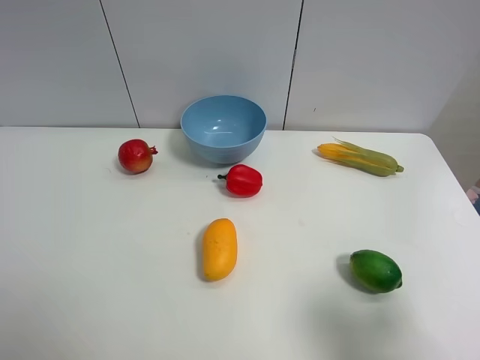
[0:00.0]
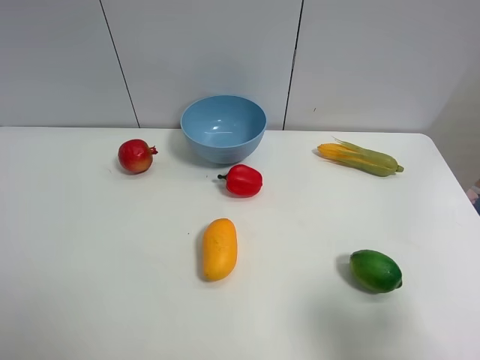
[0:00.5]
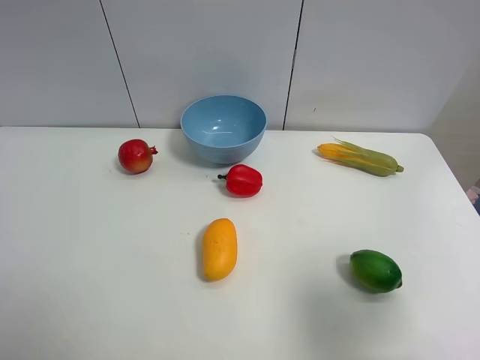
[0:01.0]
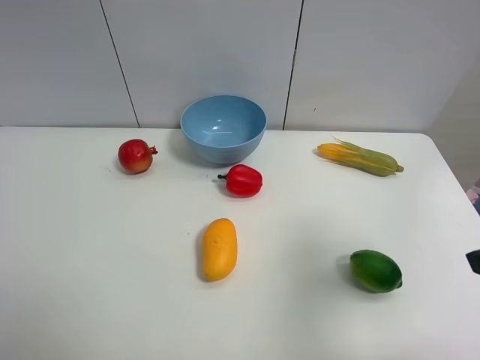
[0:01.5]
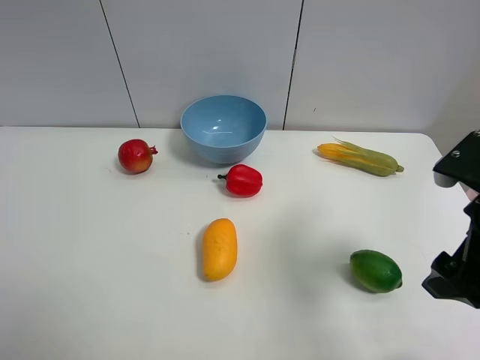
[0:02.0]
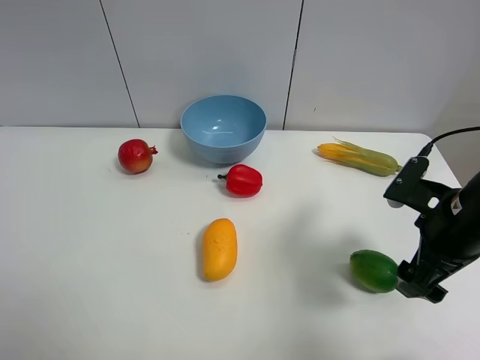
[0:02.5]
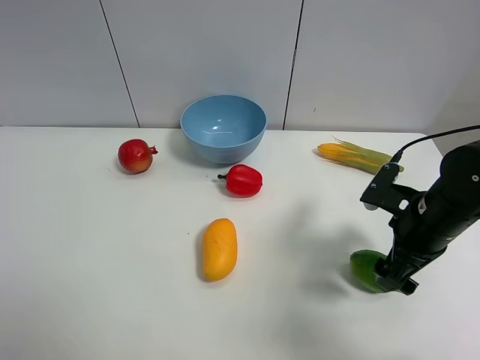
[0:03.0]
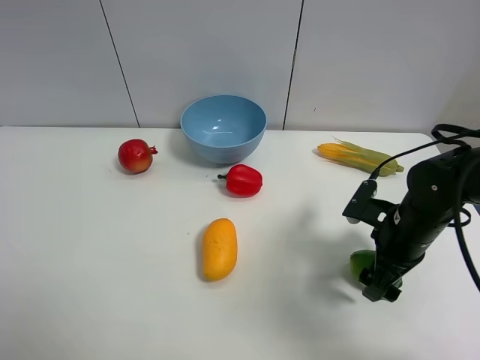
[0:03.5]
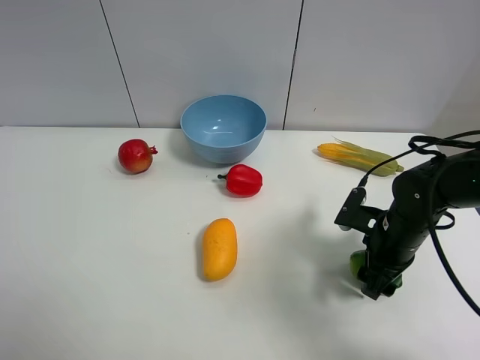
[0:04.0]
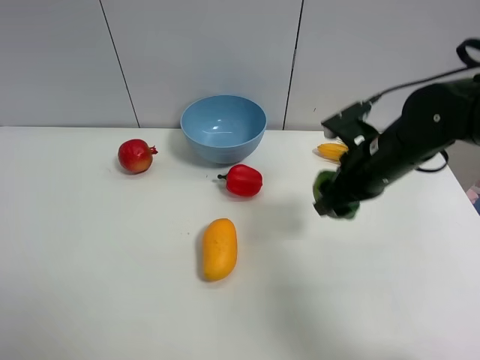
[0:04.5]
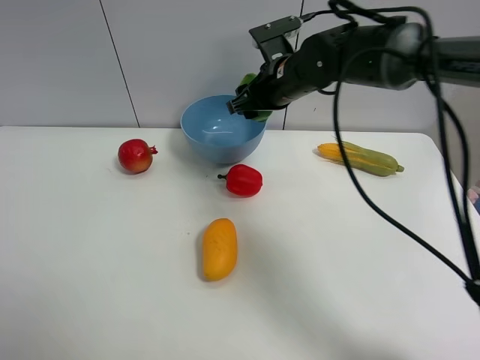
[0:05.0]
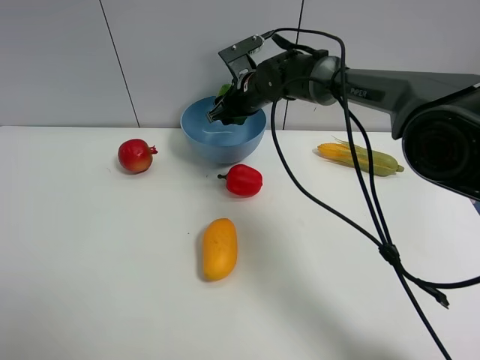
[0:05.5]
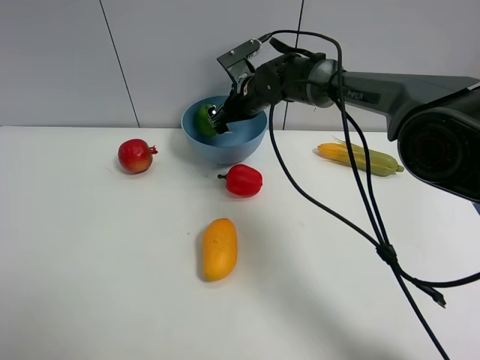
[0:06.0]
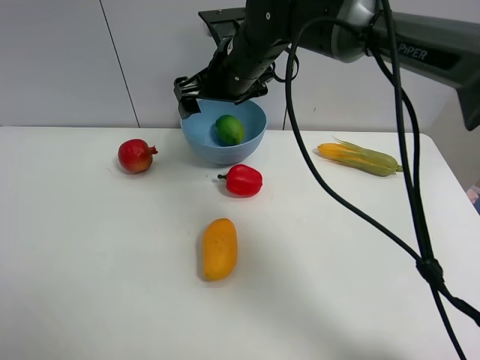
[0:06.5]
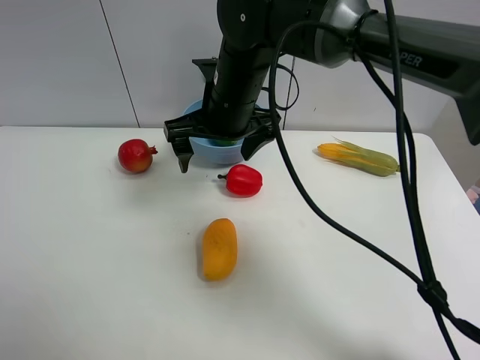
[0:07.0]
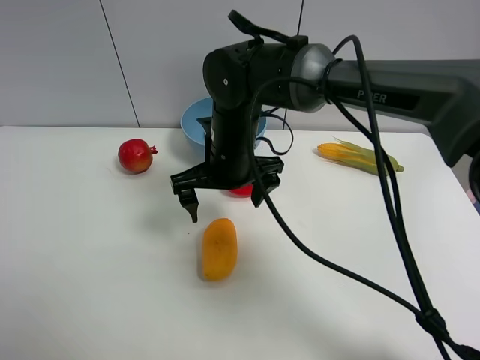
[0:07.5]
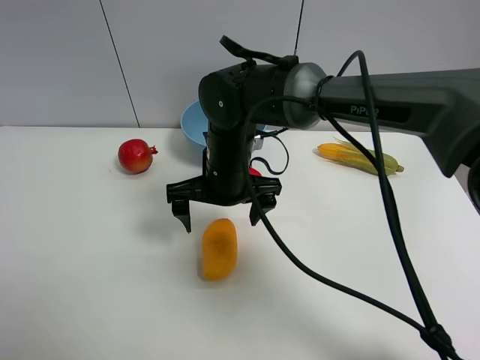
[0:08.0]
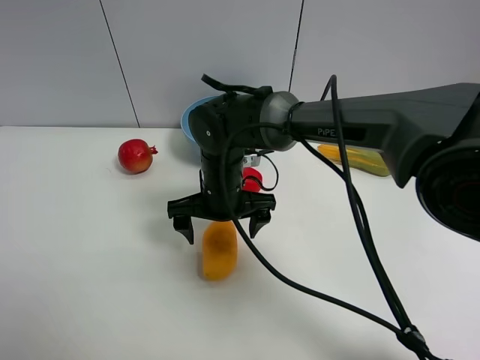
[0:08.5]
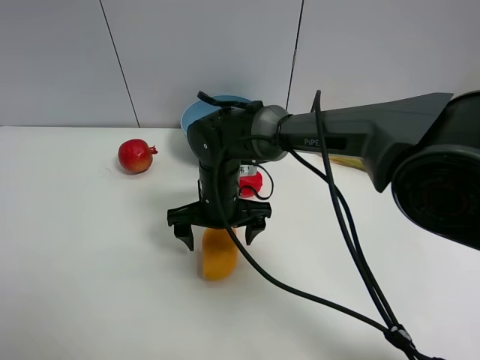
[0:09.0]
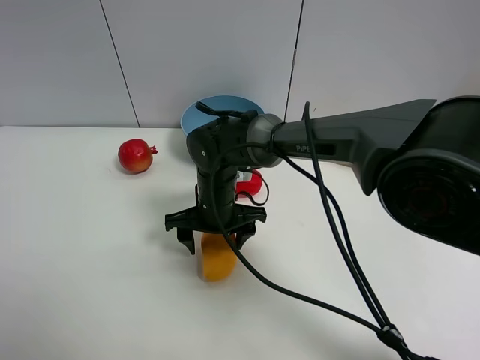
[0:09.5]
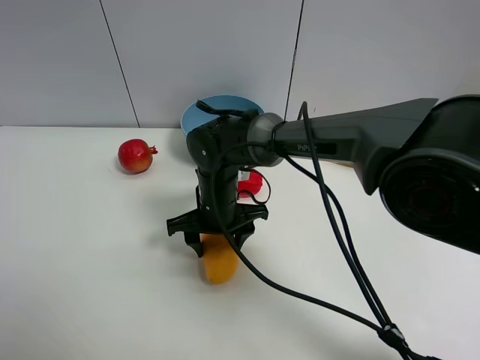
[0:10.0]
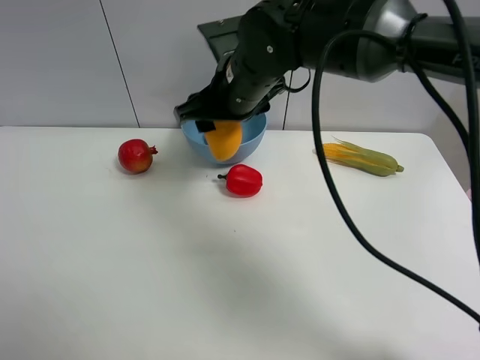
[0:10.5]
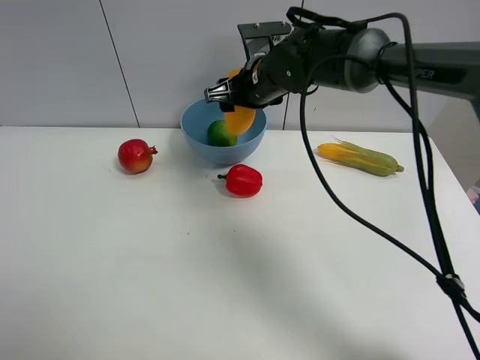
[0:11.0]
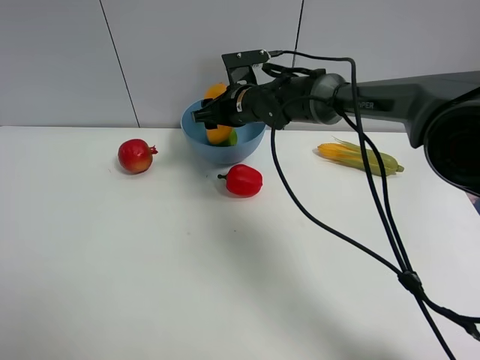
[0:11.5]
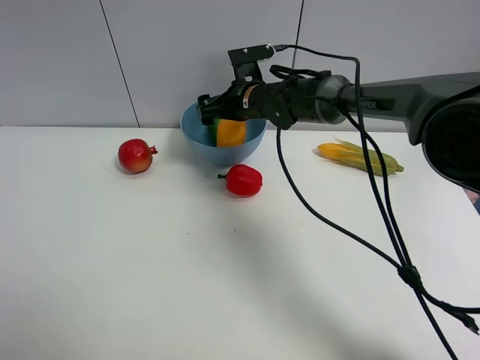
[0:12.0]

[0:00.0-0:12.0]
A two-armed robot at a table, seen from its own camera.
Task of the whole recording: Put the three fruits on the table into a bowl.
Step, 0.0 to 4.0 s: Grasp the green lemon with right gripper.
Step, 4.5 to 6.0 s: Place the green lemon in the blue bowl with right gripper.
Step, 6.5 to 9.5 s: Grasp the mango with right gripper.
Step, 10.0 to 12.0 s: Place the mango in the blue bowl with right gripper.
0.0 to 2.0 s: The right gripper moves forward, some 15 cm.
2.0 to 4.0 s: The right gripper moves downward and forward, roughly 15 cm, and closes its fingers.
4.0 to 6.0 s: The right gripper is displaced forward and to the left by approximately 30 cm, and opens its fingers.
6.0 to 8.0 s: The right gripper is displaced backward by roughly 20 cm.
8.0 to 10.0 s: The right gripper shifts some 5 cm downward, and closes its fingers.
10.0 to 12.0 s: The right gripper goes about 15 cm forward and to the right, travels upward and back again, roughly 15 cm each way, and opens.

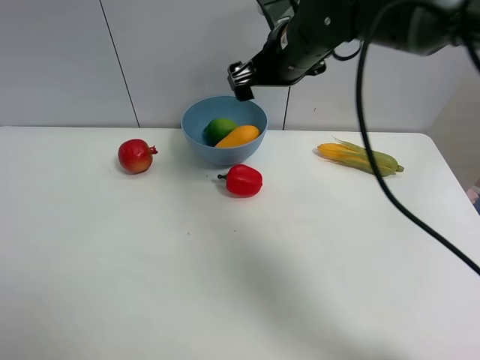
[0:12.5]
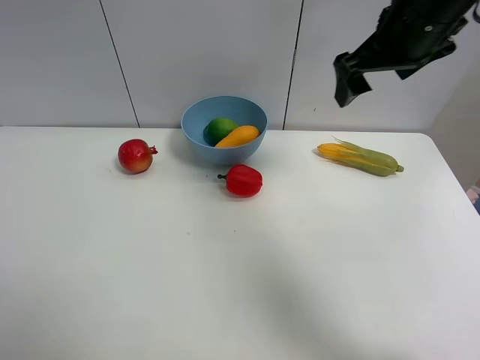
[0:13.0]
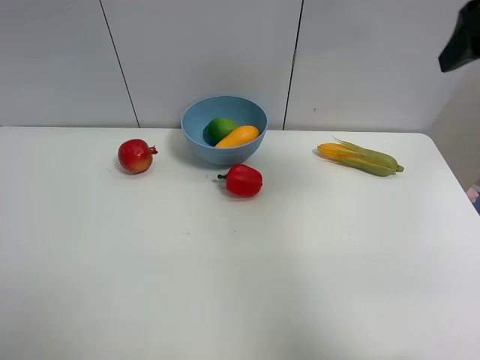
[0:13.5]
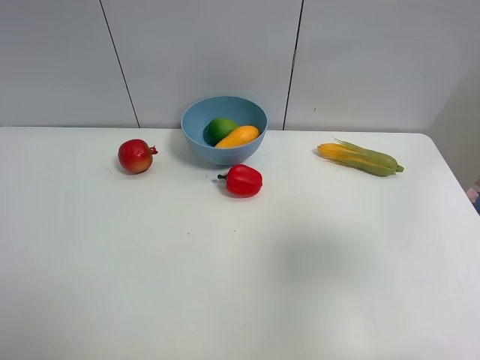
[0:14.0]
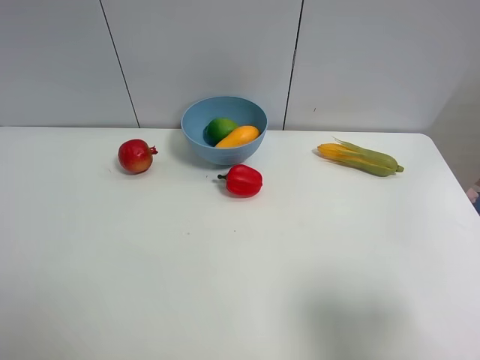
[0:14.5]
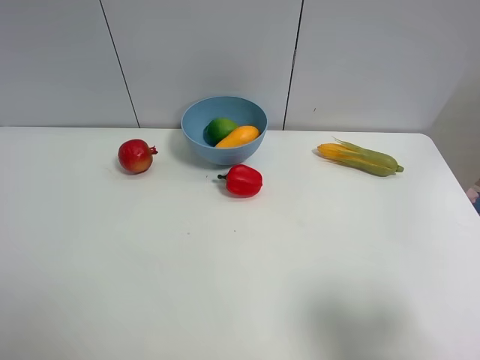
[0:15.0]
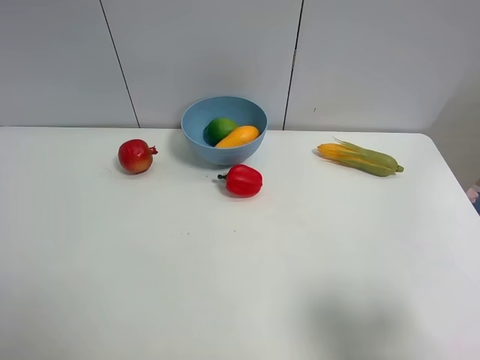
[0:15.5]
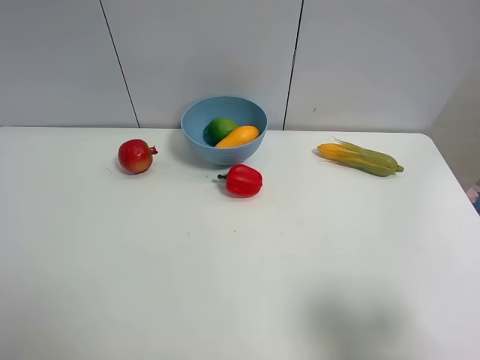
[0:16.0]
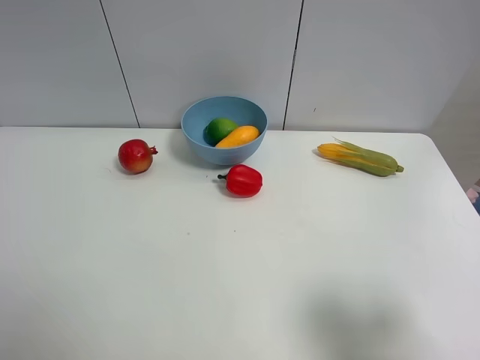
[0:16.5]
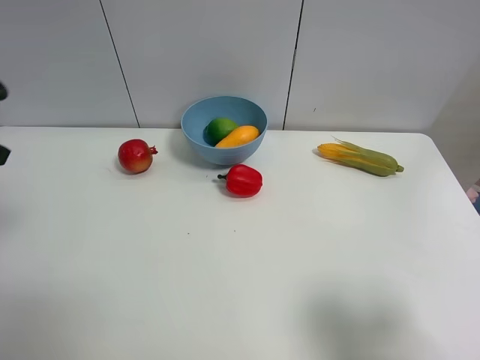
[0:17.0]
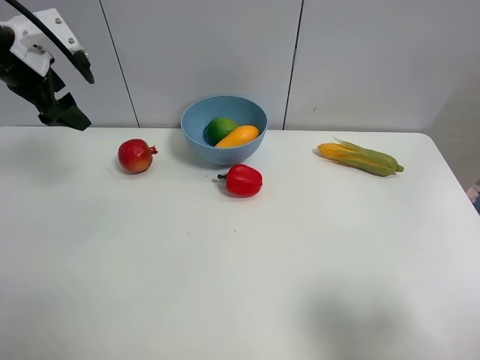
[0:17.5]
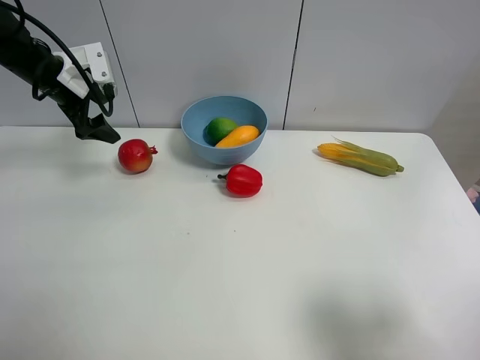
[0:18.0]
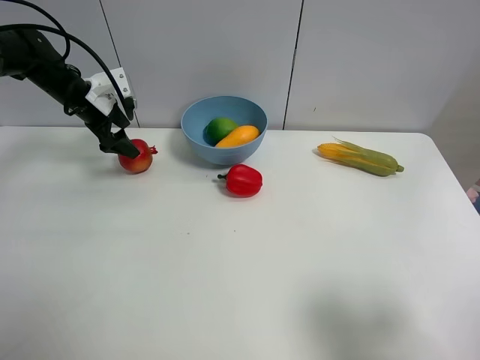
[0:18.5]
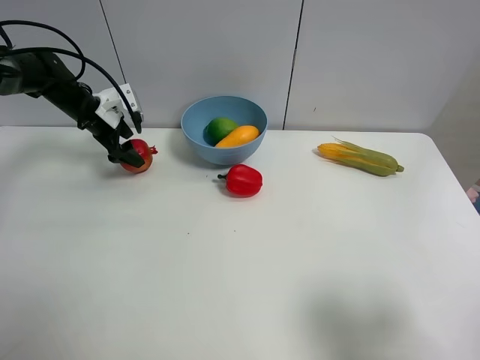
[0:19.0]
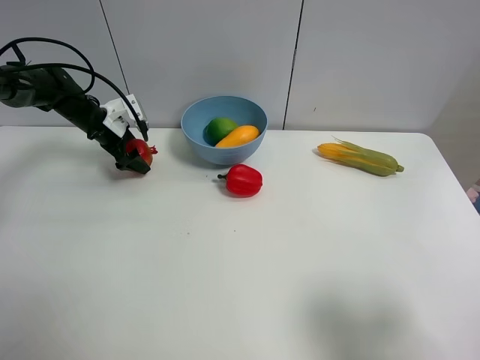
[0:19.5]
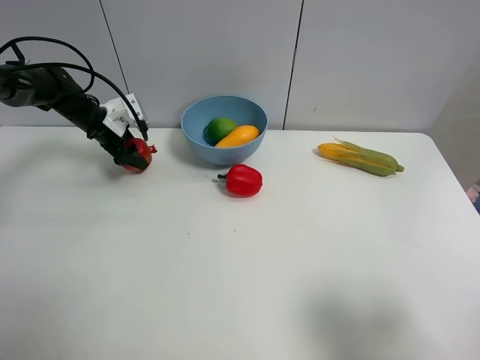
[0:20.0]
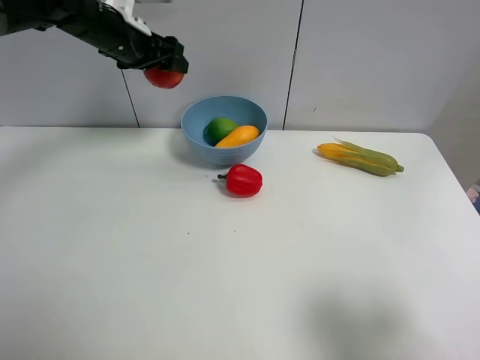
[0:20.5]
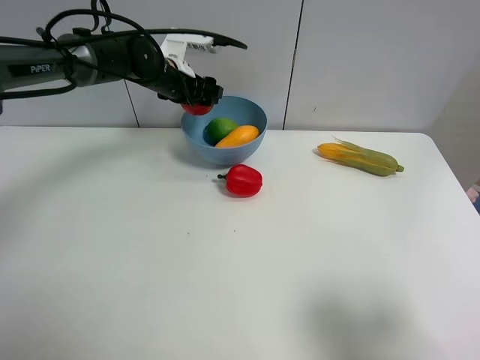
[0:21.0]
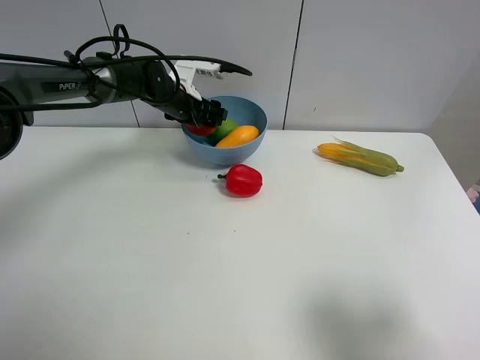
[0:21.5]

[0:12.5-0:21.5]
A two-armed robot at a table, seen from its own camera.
Task of the whole recording: Put the three fruits on the table into a bowl.
Step, 12.5 to 19.5 s: Grasp the pomegranate with left gripper.
12.5 to 14.5 s: The right gripper travels backward and to the right by some 40 cm.
17.0 to 19.5 s: The left gripper is displaced forward and downward by approximately 35 cm.
19.5 to 21.5 s: The left gripper moves to the right, about 15 cm, travels upward and back again, approximately 20 cm each way, and closes up.

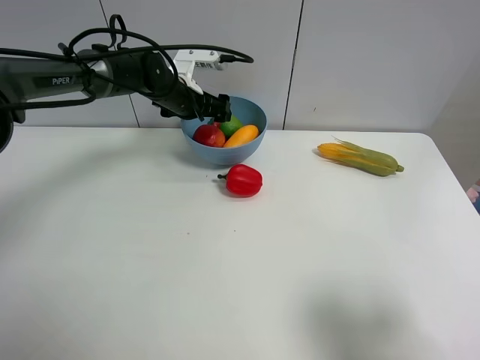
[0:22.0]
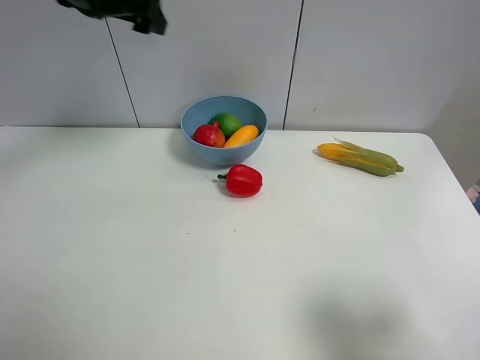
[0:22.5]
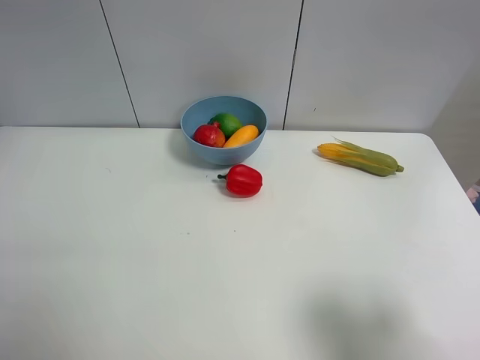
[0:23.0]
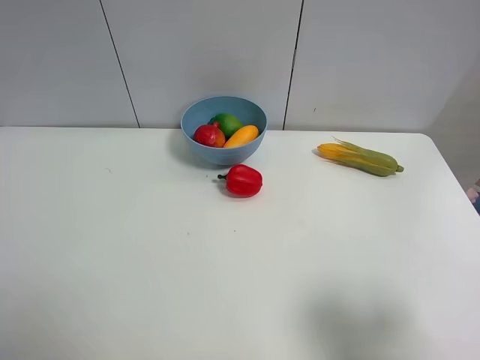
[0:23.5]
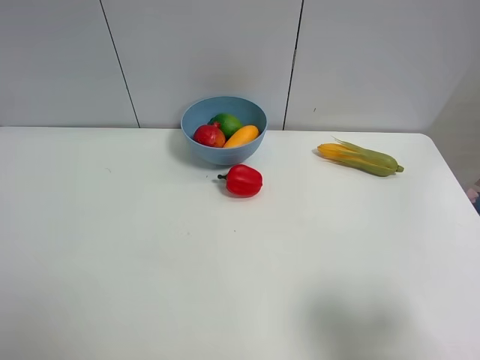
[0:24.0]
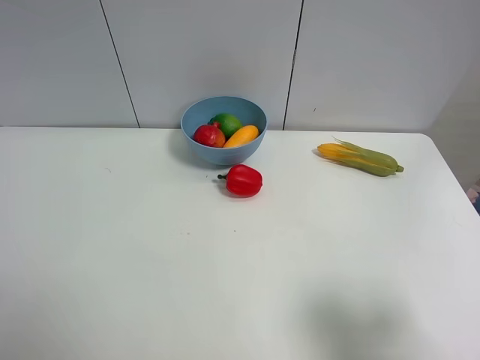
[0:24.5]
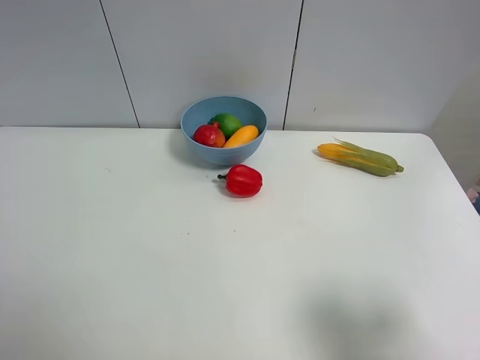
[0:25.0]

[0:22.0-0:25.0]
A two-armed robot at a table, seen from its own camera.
Task of the whole recording: Put the three fruits on the table into a bowl.
22.0 to 23.5 s: The left gripper moves backward, upward and to the left, approximately 50 cm.

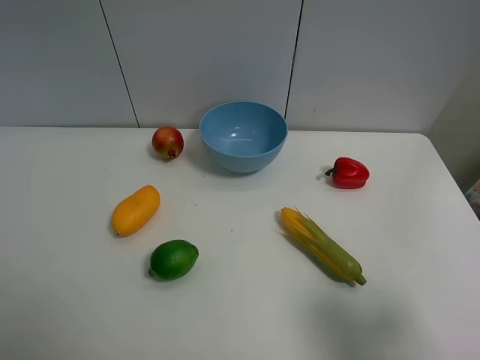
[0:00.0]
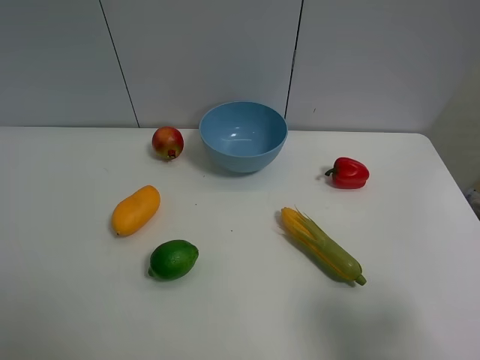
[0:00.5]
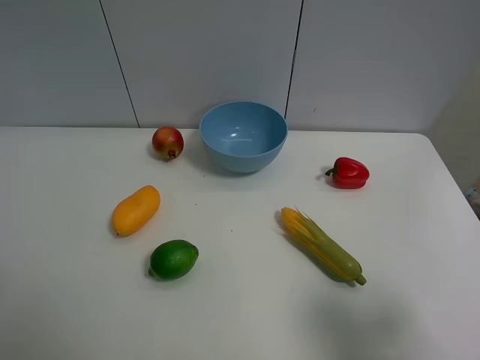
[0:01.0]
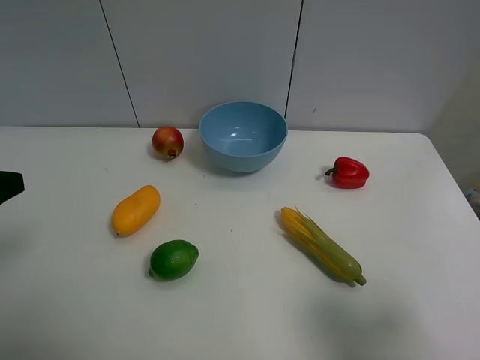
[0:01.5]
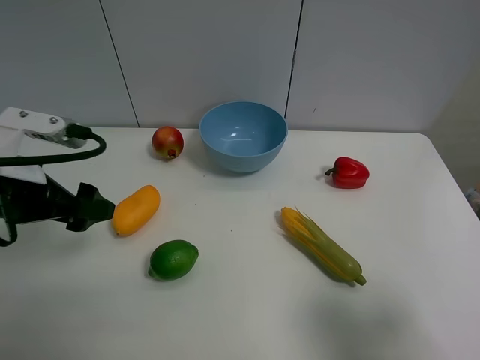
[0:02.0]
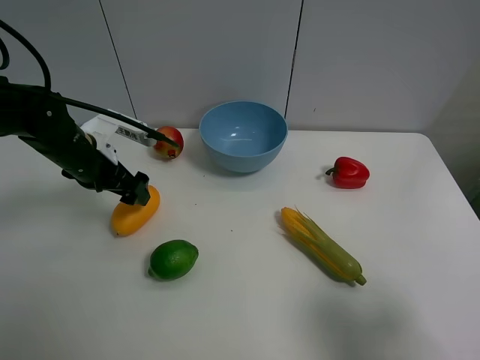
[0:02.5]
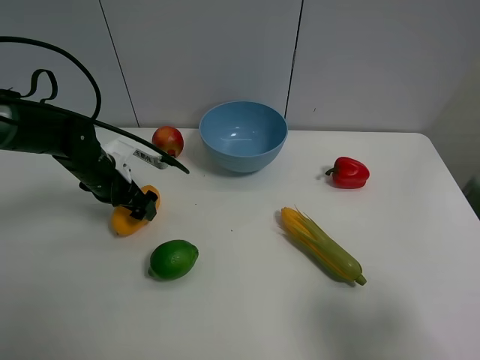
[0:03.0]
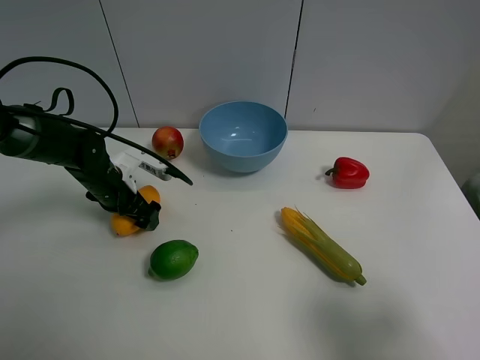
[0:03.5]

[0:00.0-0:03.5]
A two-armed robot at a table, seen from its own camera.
Task of the whole recording: Put the three fruits on the table into a bowl.
0.0 to 2.0 s: The left gripper goes roughly 20 cm forward.
2.0 to 3.5 s: The left gripper moves downward and forward, some 20 cm.
